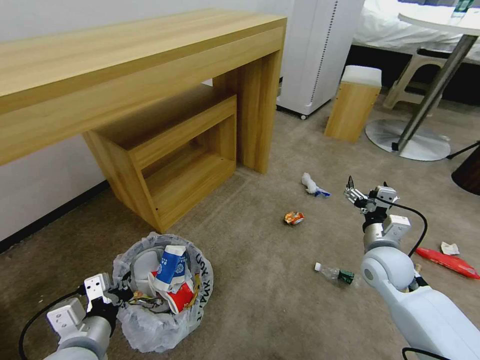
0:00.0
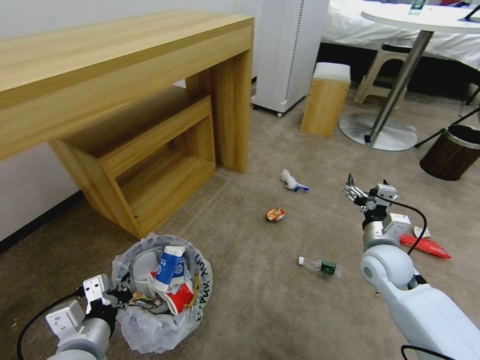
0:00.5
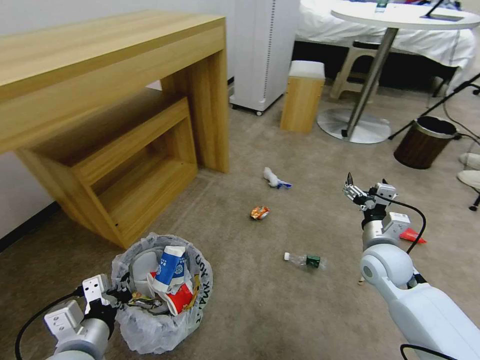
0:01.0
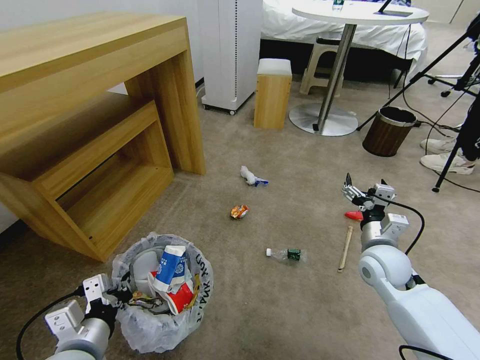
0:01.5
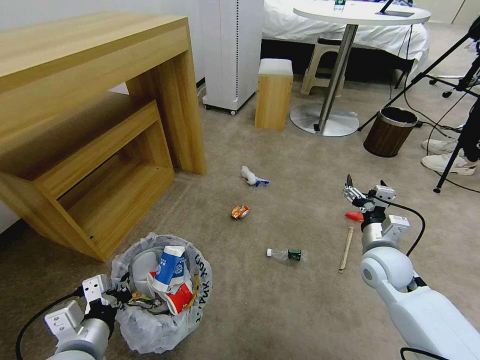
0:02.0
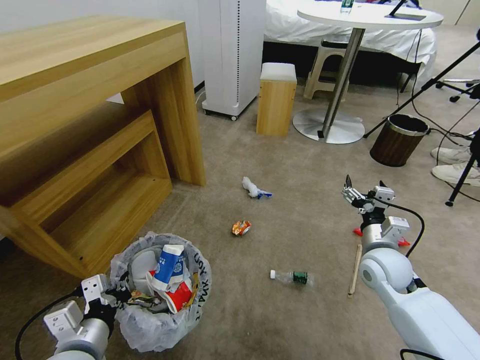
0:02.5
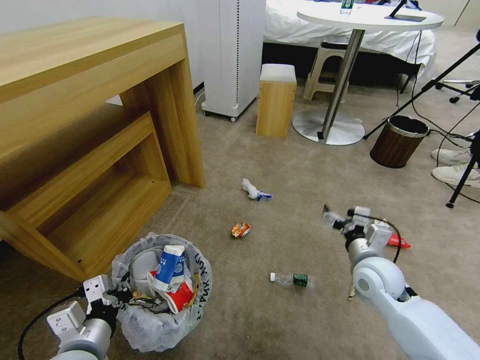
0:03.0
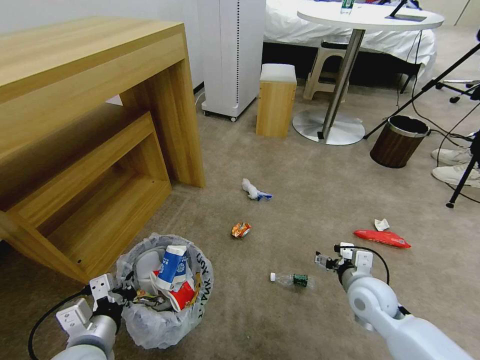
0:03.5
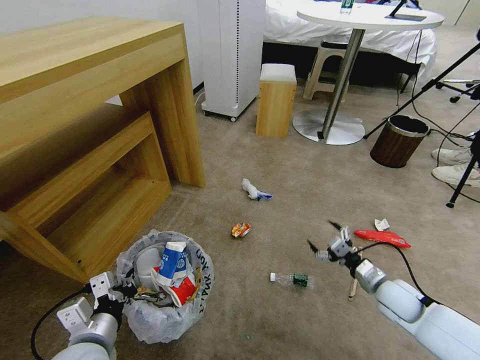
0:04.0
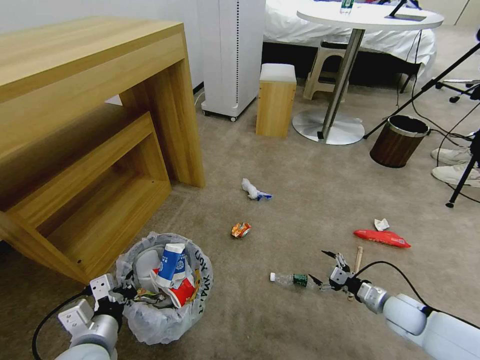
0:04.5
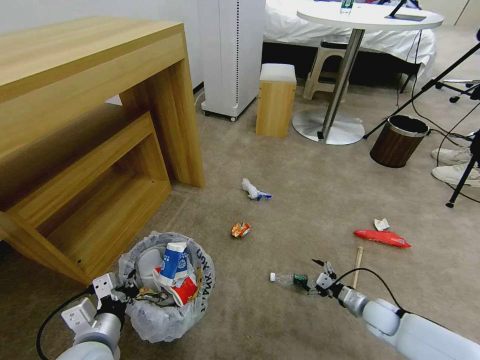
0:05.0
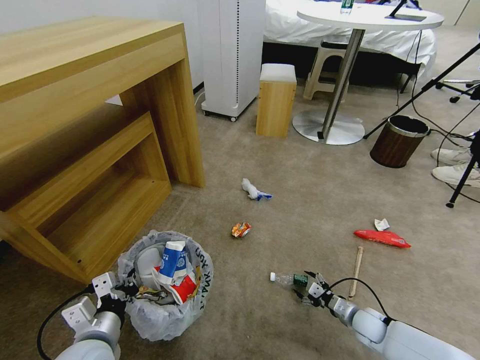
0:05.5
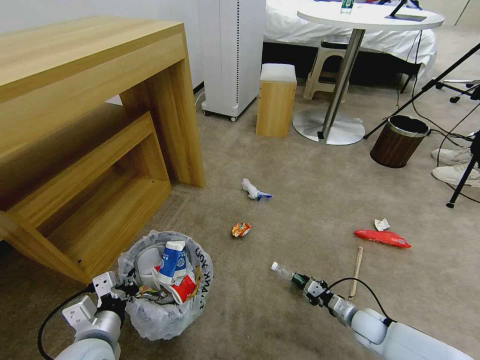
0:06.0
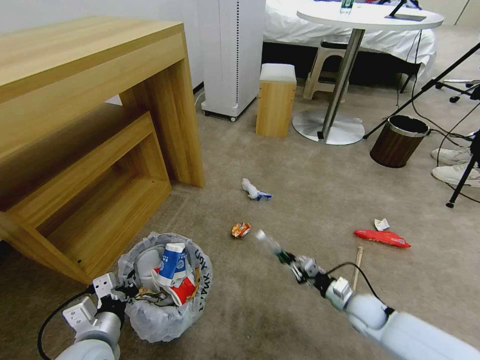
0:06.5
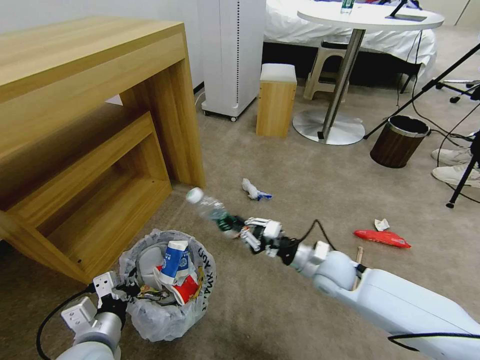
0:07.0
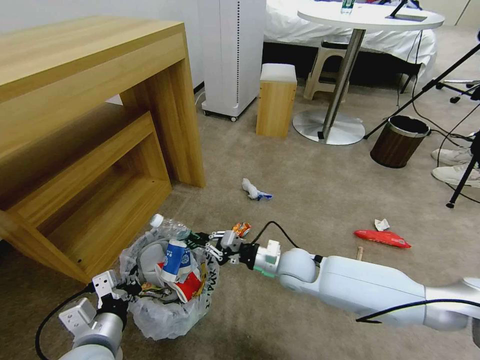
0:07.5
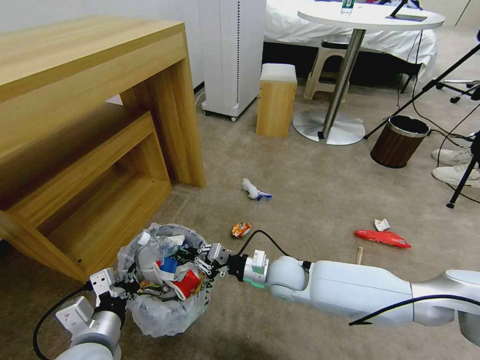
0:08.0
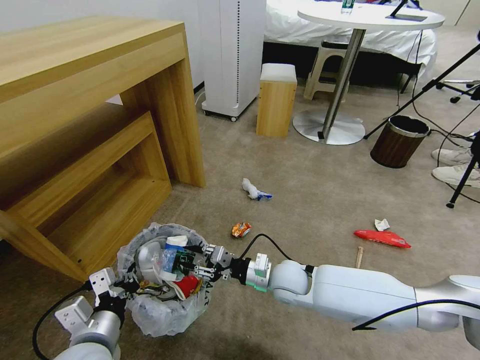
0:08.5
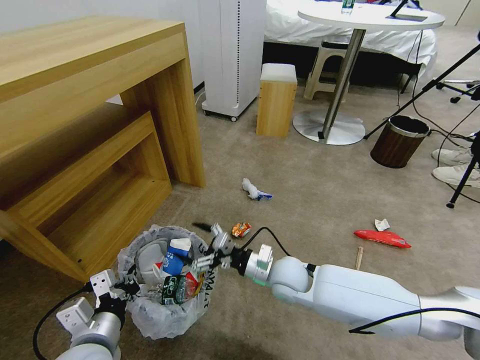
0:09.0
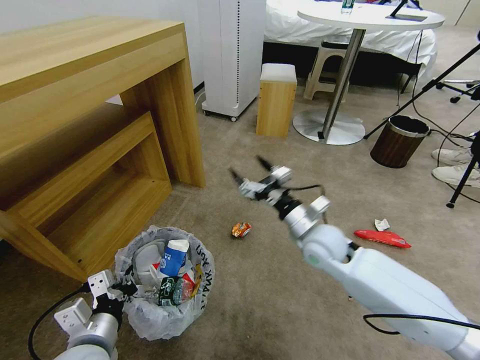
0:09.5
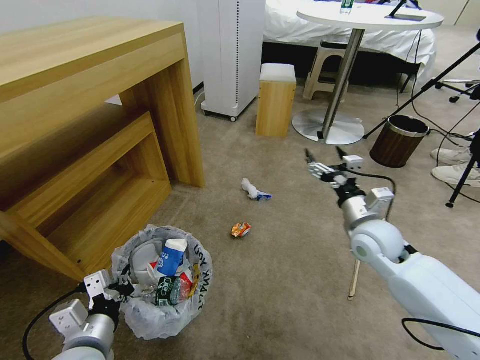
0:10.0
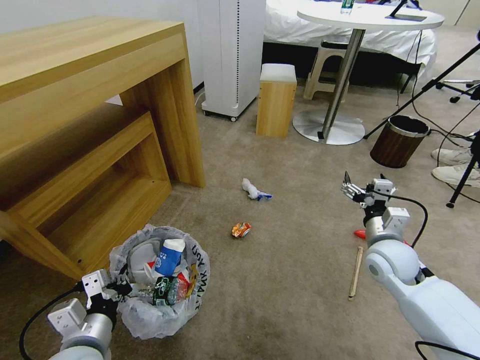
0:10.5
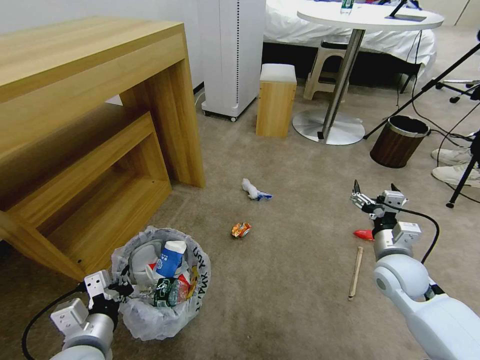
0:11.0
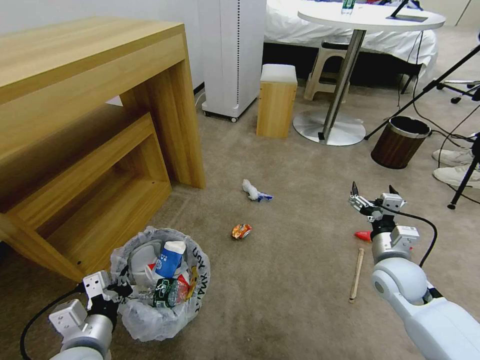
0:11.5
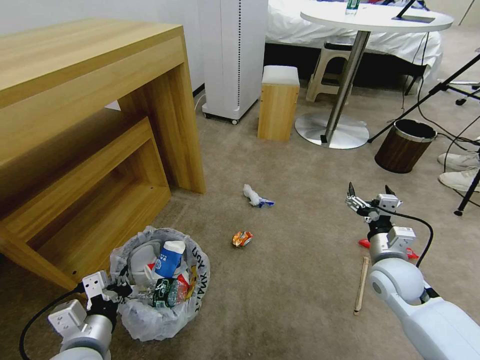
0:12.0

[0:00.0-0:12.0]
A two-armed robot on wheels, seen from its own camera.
Task of the whole recording: Pick up the trash bin and place the garbage on the floor into it.
0:02.0 to 0:04.0: The right gripper is displaced downward and to the right by some 10 cm.
0:04.0 to 0:06.0: The right gripper shifts roughly 15 cm downward, and closes up.
0:06.0 to 0:08.0: The right gripper is displaced to the left and upward by about 30 cm.
0:08.0 to 0:10.0: The right gripper shifts some 20 cm to the right and upward, and opens up.
0:10.0 to 0:12.0: The right gripper goes approximately 10 cm downward and backward.

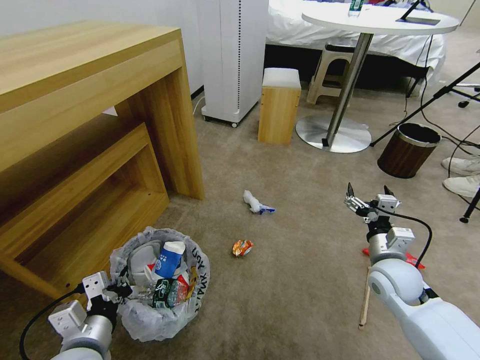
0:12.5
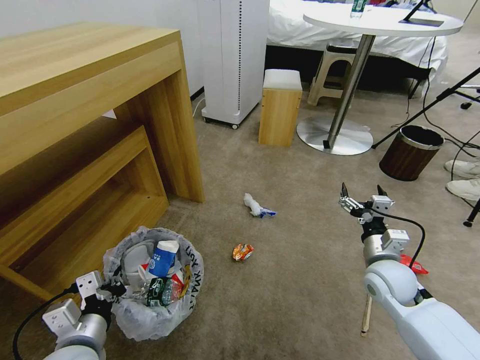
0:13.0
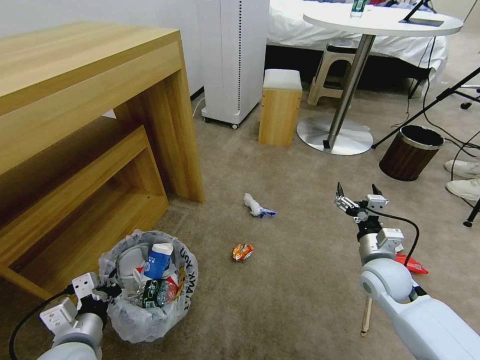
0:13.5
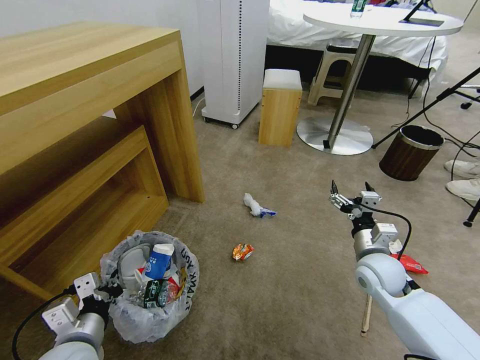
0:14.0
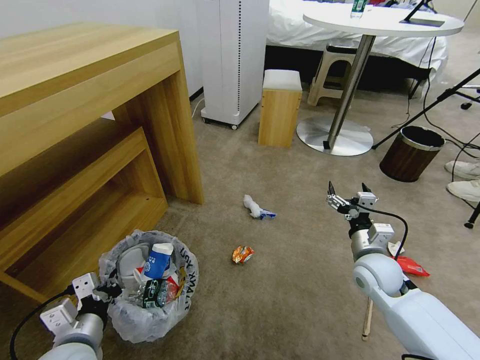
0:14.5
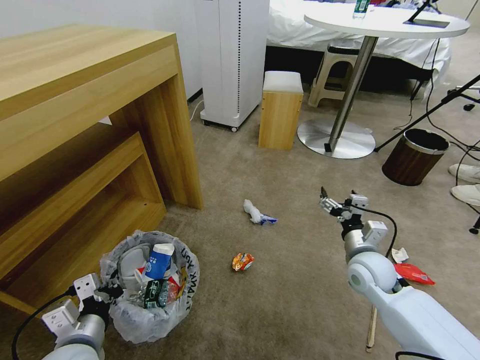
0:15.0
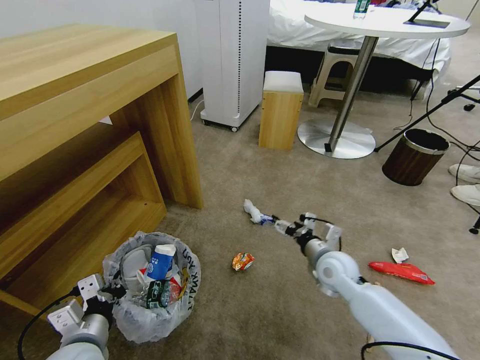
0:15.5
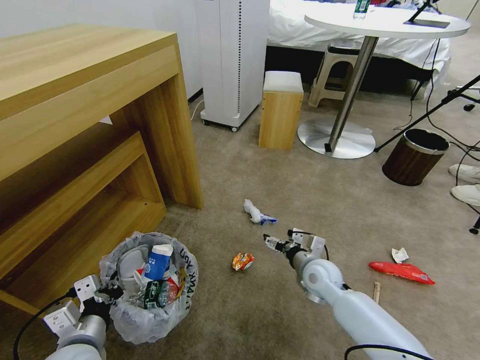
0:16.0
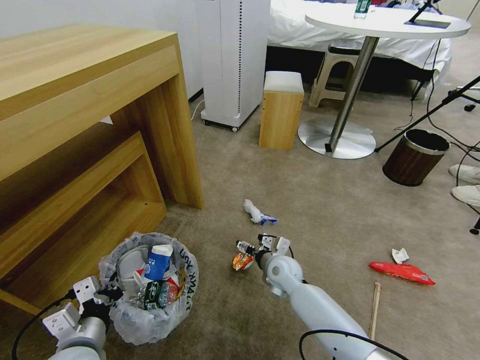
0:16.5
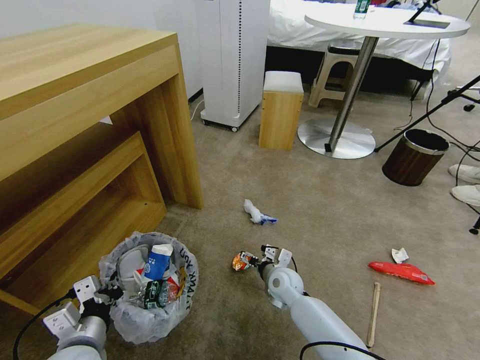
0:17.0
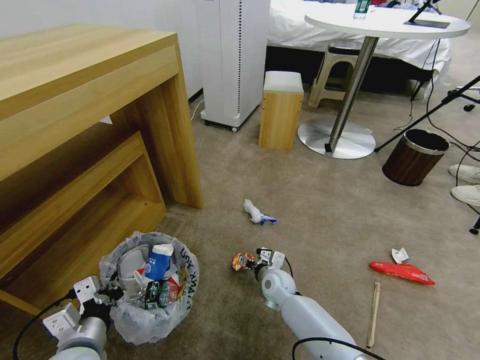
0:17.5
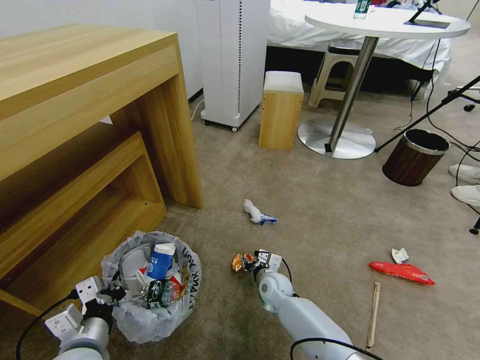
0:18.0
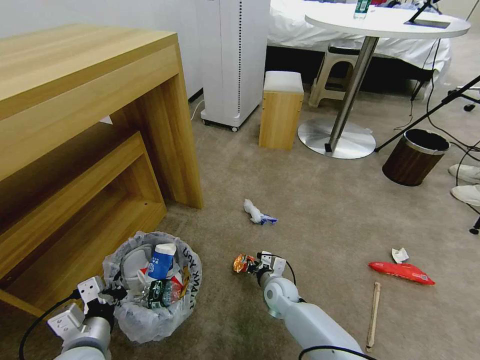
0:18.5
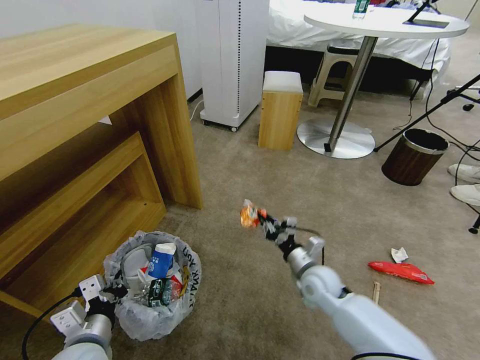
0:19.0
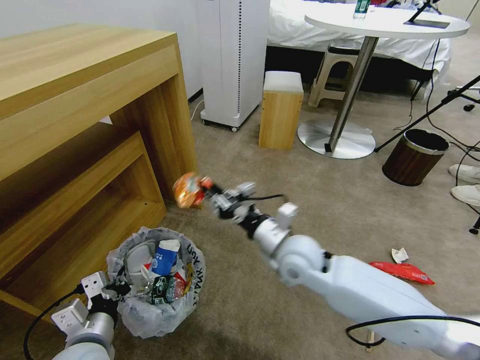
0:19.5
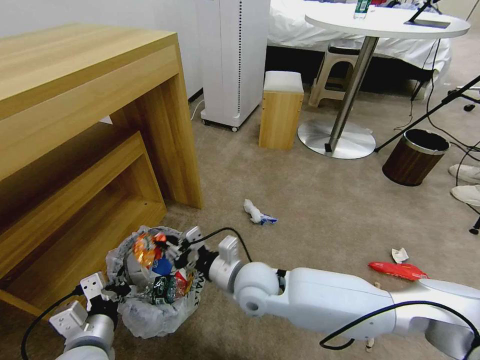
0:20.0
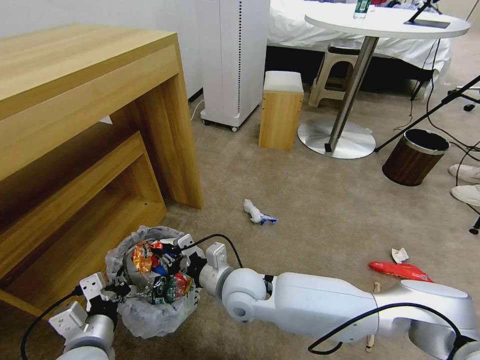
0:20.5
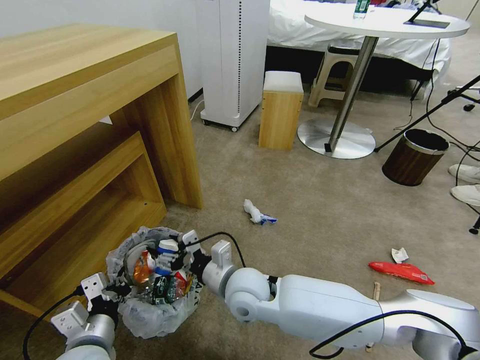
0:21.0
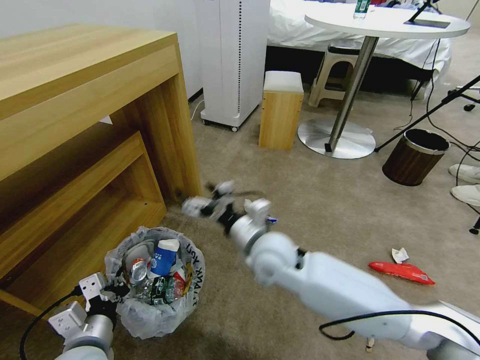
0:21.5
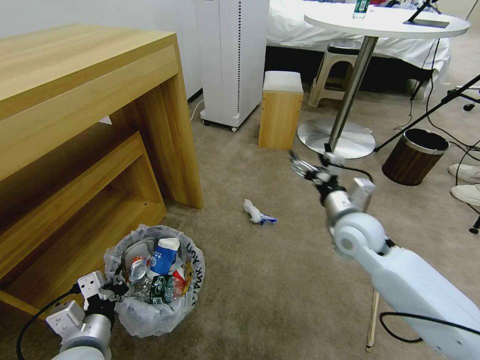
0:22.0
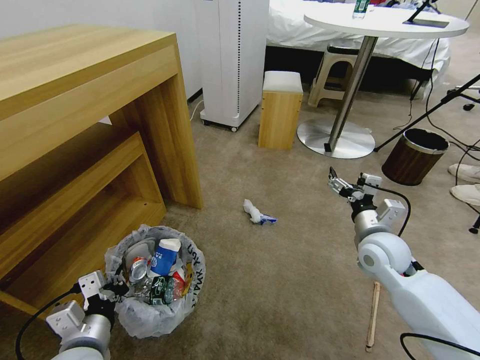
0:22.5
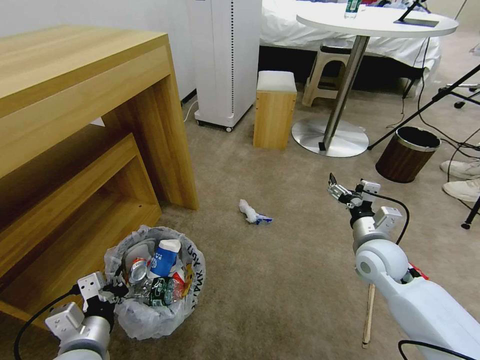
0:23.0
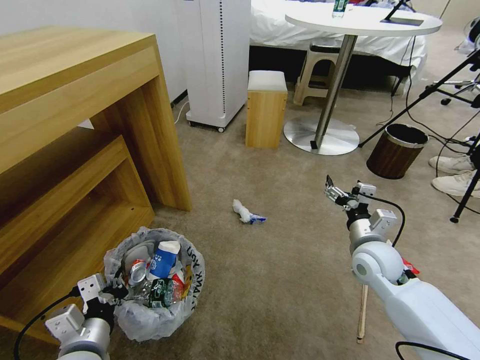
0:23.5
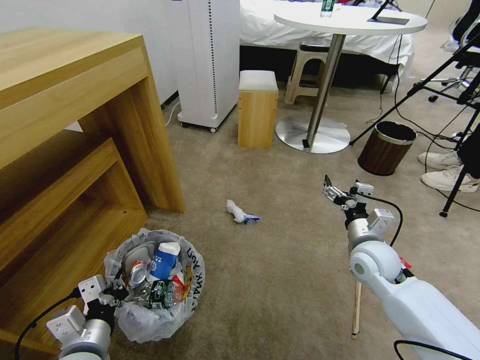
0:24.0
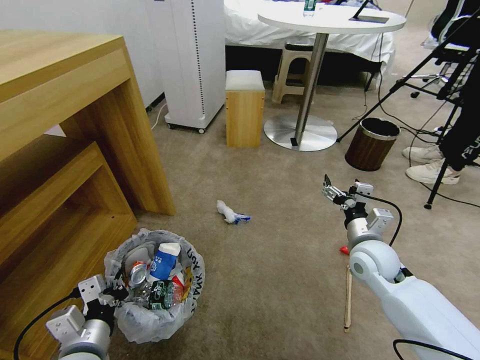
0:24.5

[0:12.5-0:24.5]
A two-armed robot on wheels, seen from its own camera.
Task of the whole recording: Pick up the trash bin and place the garbage on the floor into it.
0:12.5 to 0:14.5: There are only small adjustments of the grippers.
0:14.5 to 0:16.5: The right gripper shifts some 20 cm to the left and downward.
0:16.5 to 0:18.5: The right gripper shifts roughly 10 cm downward, and closes.
0:18.5 to 0:20.5: The right gripper shifts some 25 cm upward and to the left.
0:20.5 to 0:22.5: The right gripper goes some 30 cm to the right, and opens its fingers.

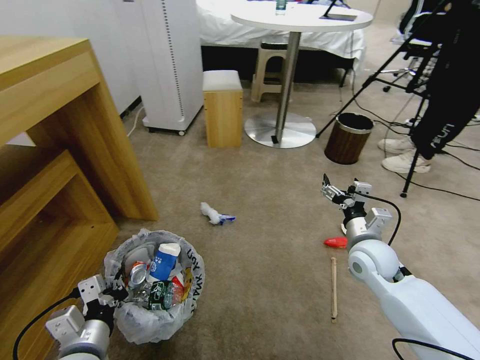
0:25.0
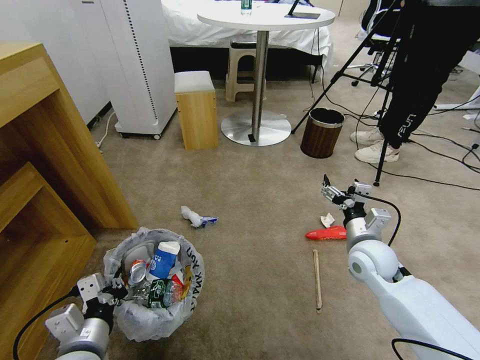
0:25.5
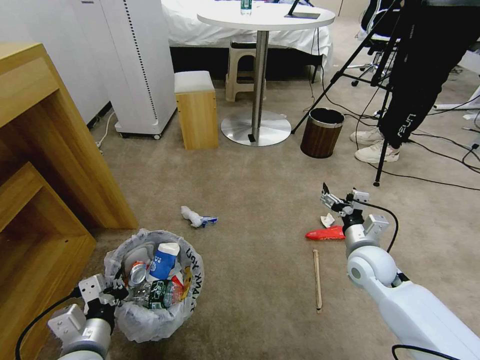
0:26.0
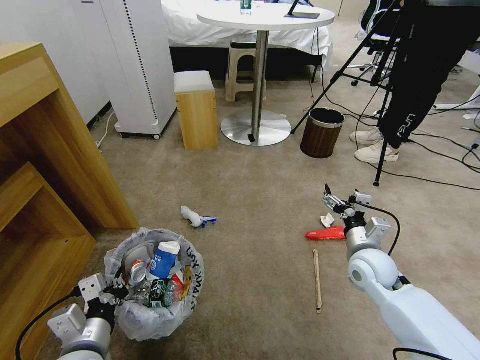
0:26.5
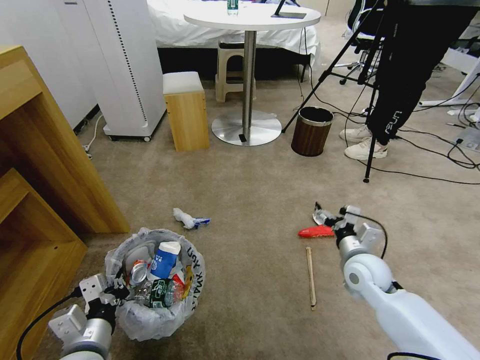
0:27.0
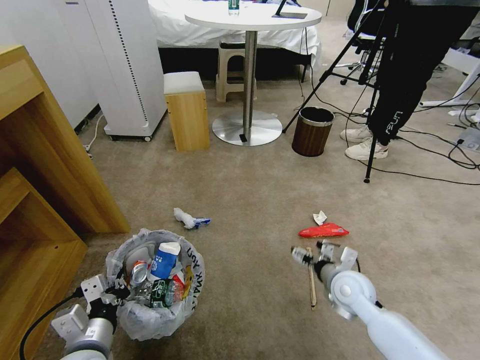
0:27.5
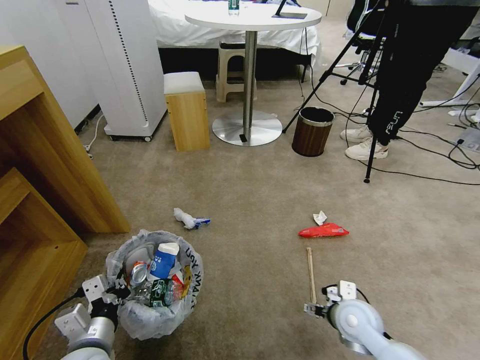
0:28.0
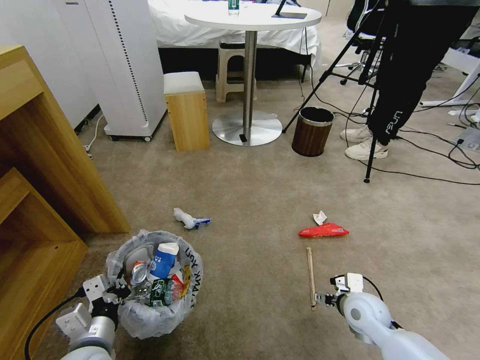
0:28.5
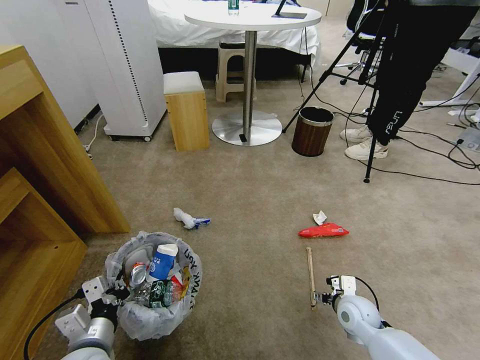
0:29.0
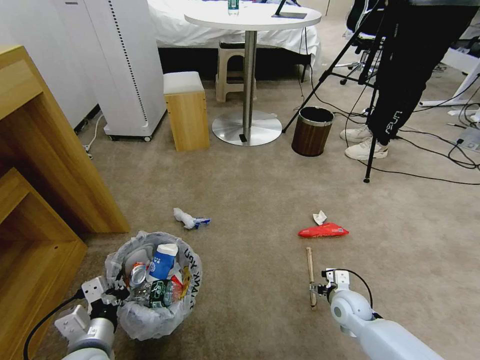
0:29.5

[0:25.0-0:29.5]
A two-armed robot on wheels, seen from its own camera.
Task of the whole recording: Pick up the trash bin and place the garbage on the floor into it.
0:27.0 to 0:29.5: The right gripper goes roughly 15 cm downward.
